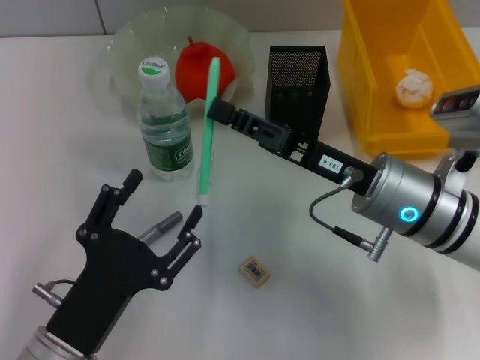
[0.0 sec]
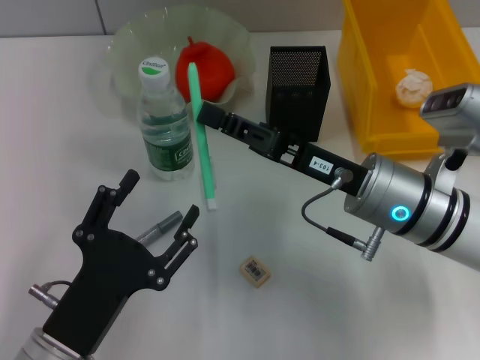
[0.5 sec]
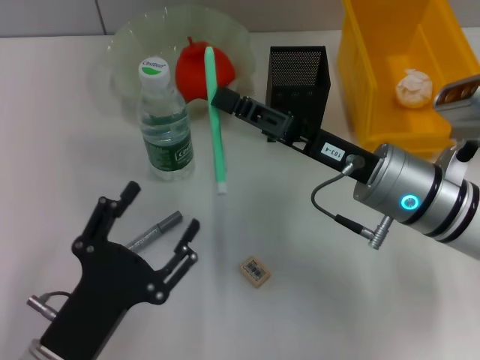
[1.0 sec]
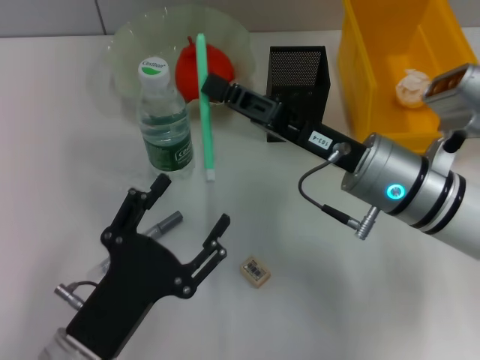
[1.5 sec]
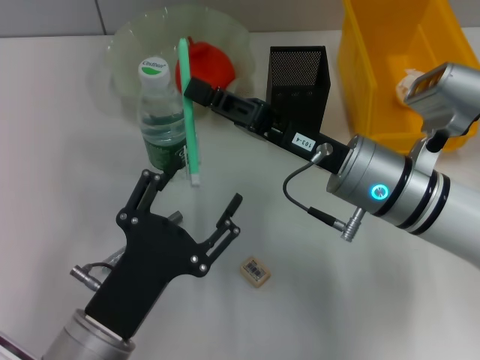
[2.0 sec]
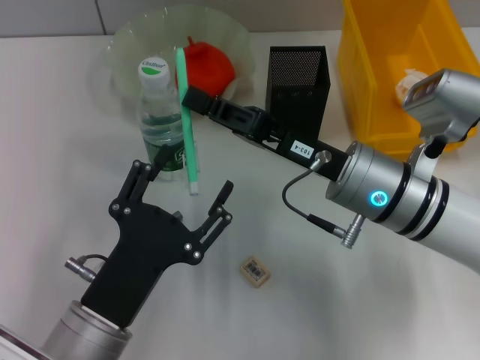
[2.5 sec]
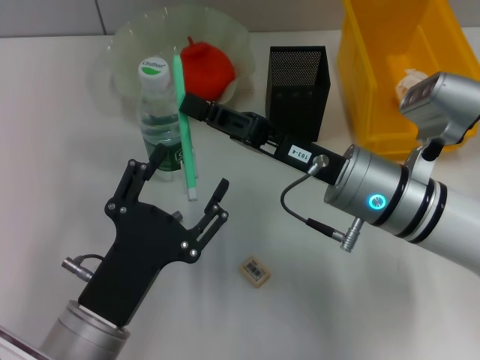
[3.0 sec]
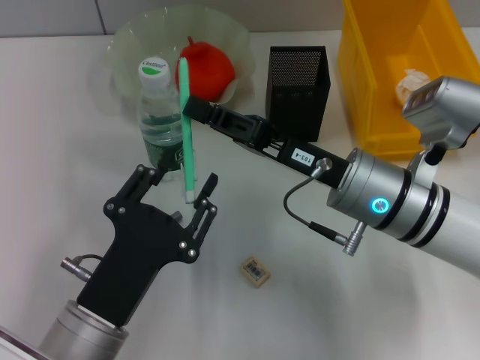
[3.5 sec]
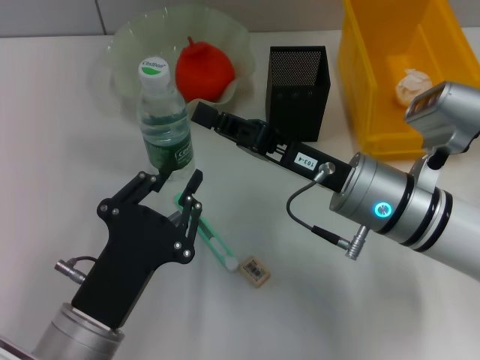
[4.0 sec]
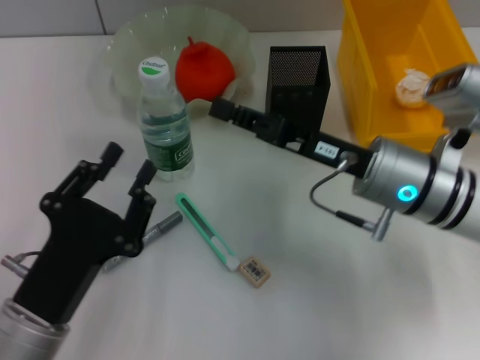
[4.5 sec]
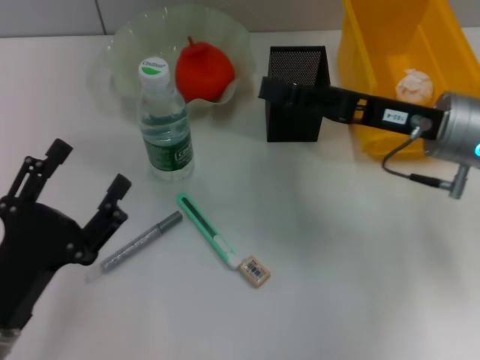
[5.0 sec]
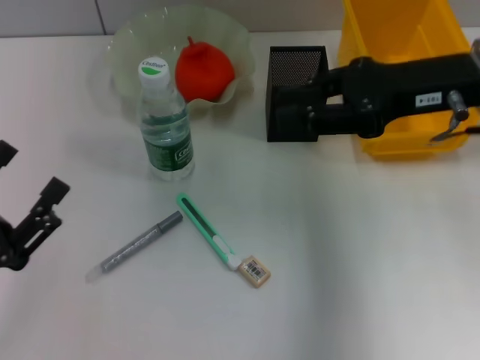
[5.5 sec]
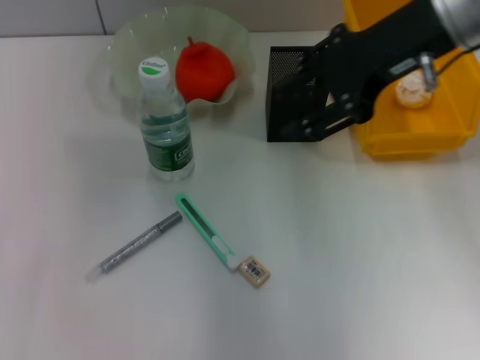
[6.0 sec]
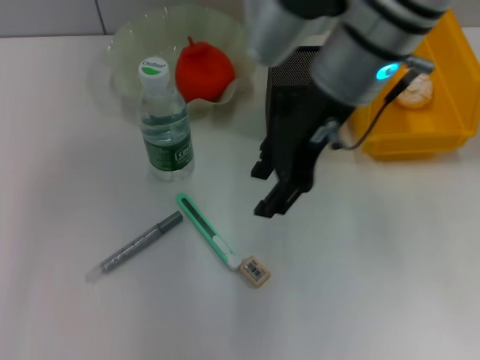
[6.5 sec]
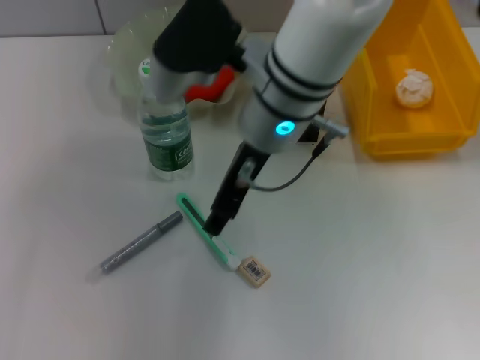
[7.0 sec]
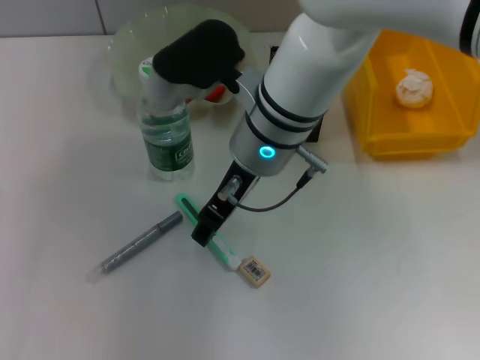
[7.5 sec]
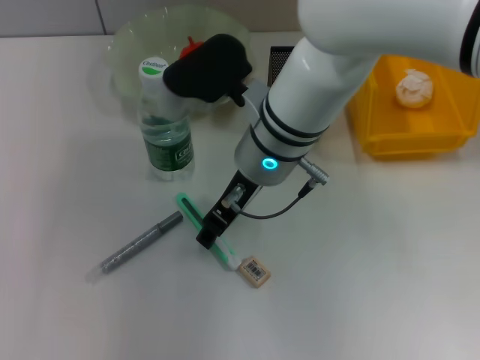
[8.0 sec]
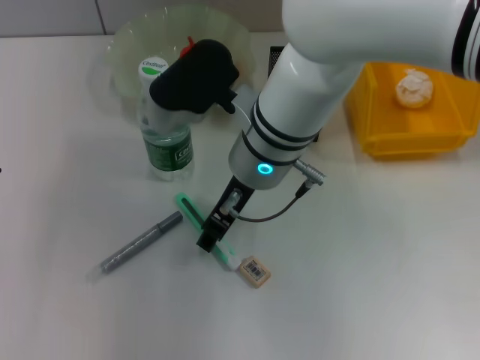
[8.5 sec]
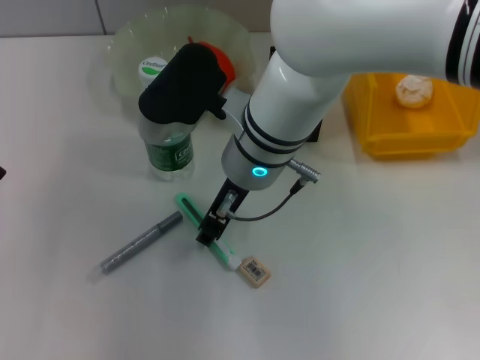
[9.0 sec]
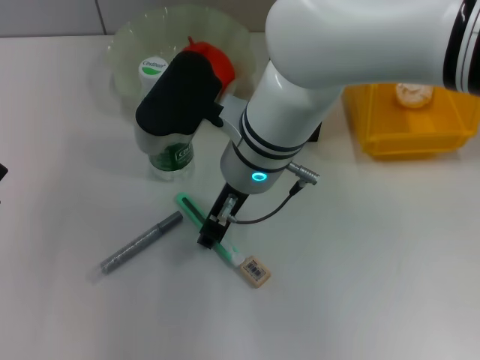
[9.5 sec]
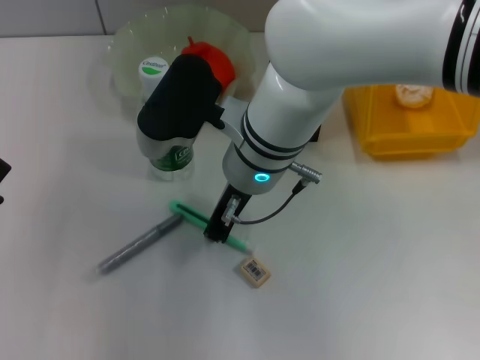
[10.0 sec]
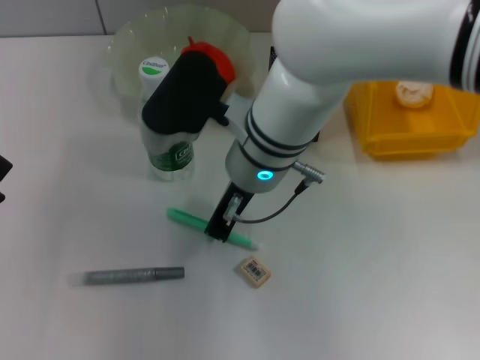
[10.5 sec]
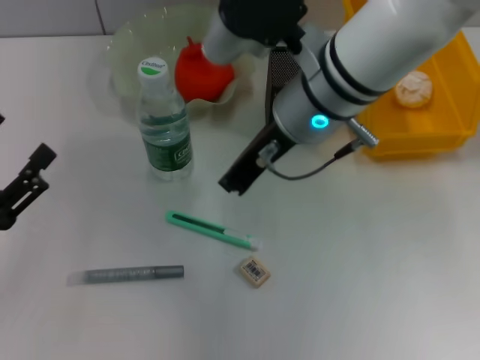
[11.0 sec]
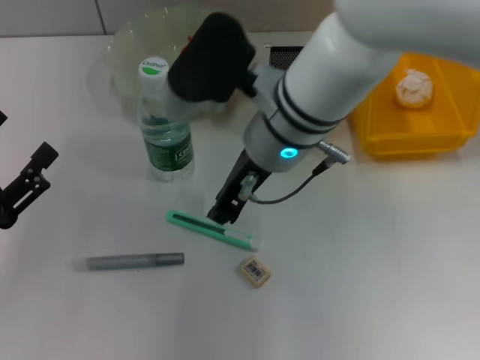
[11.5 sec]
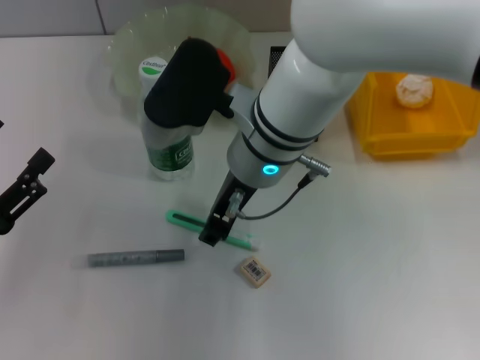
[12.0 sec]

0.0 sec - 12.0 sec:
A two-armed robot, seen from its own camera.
2.0 sec - 4.0 sec: The left gripper closes its fingers.
4.0 sec - 6.0 sec: The left gripper heads to the left, covering roughly 20 cm, and opens up; the right gripper travels upward and forward by about 20 cm, and opens its fingers.
6.0 sec - 8.0 sec: The right gripper goes some 20 cm to the left and downward.
8.0 sec - 10.0 sec: The right gripper closes its fingers.
10.0 sec - 12.0 sec: The right gripper closes, then opens again.

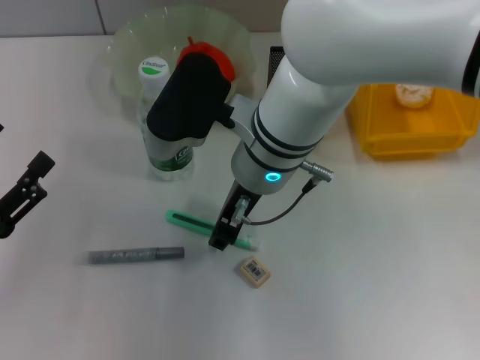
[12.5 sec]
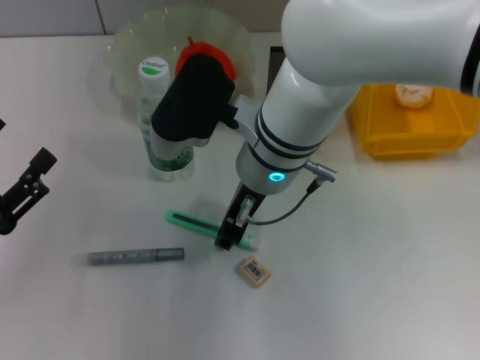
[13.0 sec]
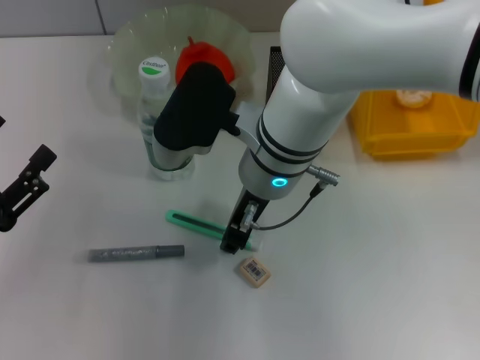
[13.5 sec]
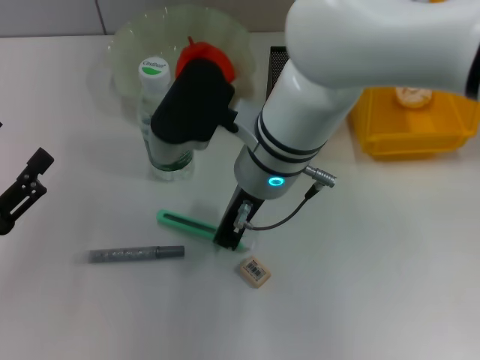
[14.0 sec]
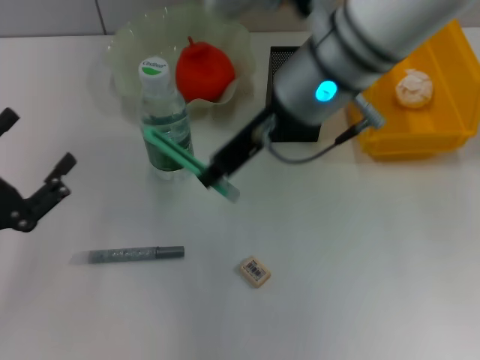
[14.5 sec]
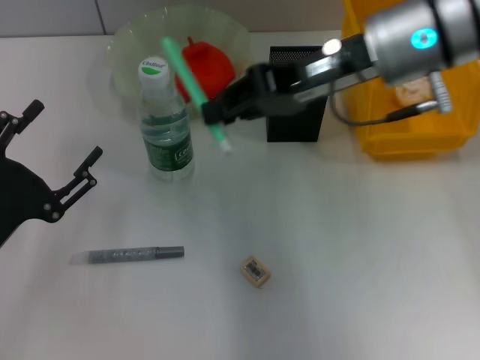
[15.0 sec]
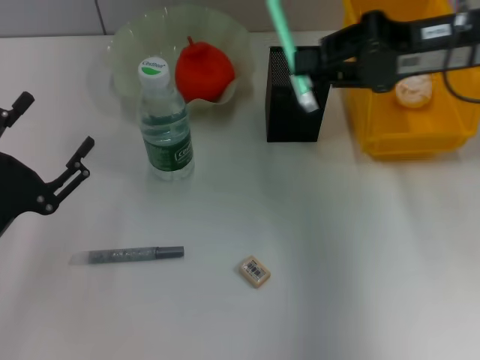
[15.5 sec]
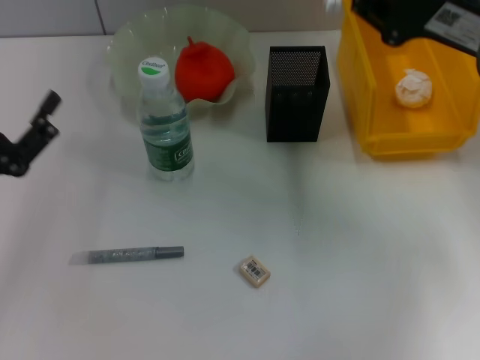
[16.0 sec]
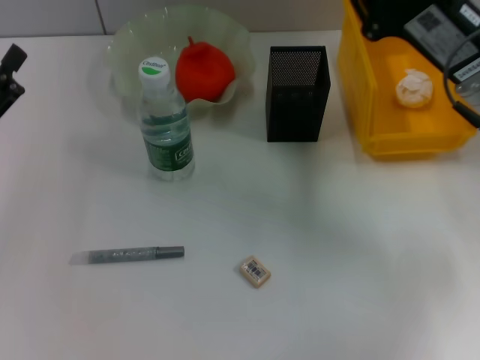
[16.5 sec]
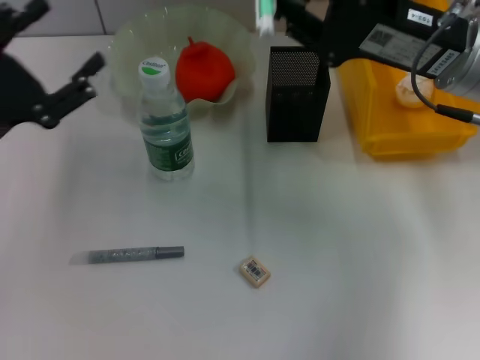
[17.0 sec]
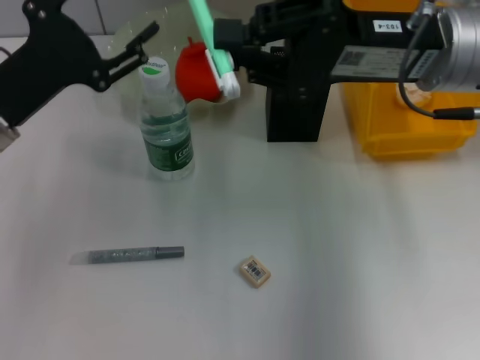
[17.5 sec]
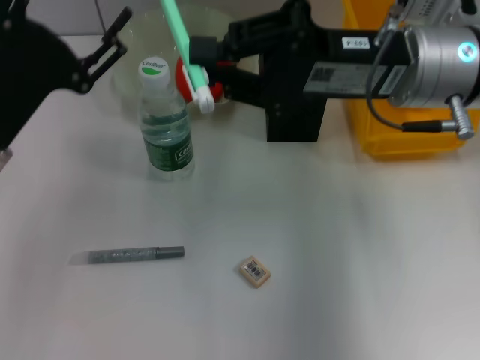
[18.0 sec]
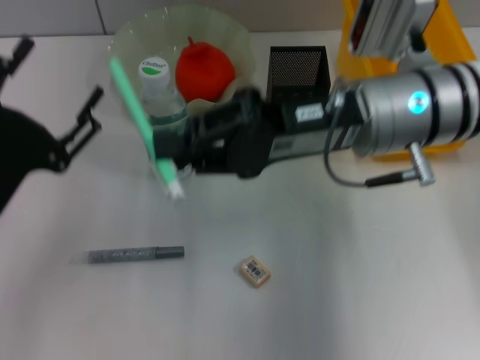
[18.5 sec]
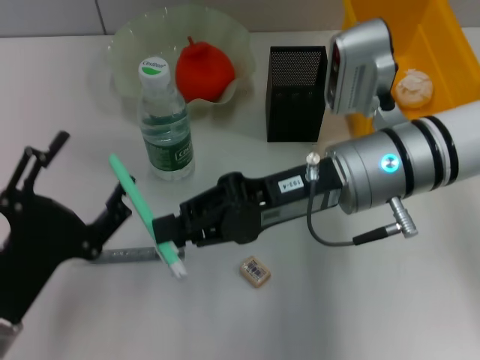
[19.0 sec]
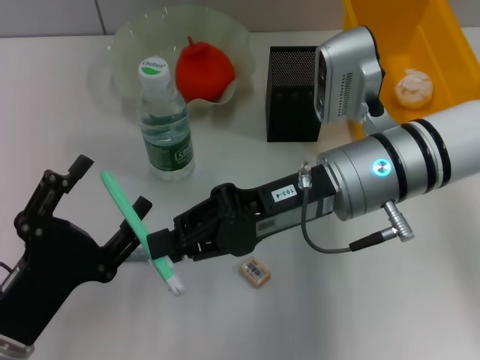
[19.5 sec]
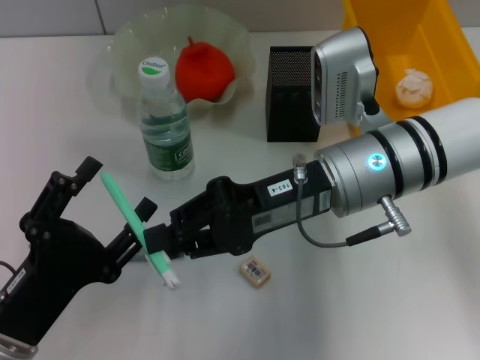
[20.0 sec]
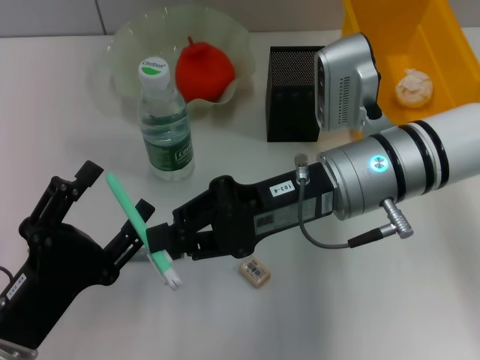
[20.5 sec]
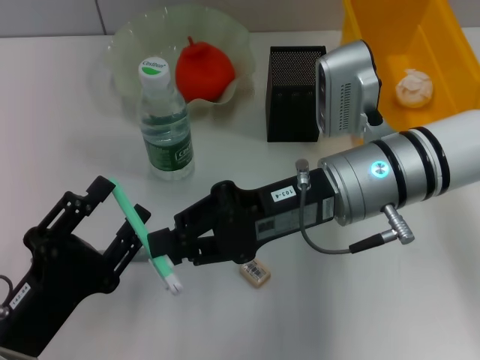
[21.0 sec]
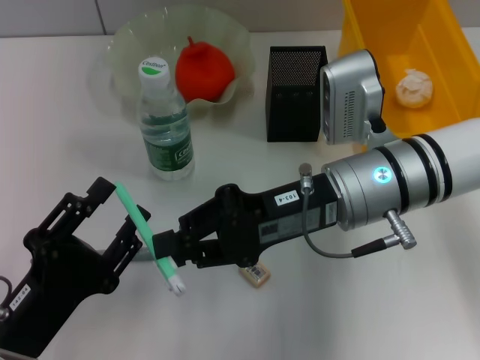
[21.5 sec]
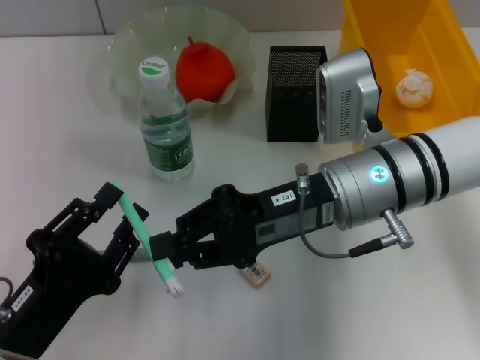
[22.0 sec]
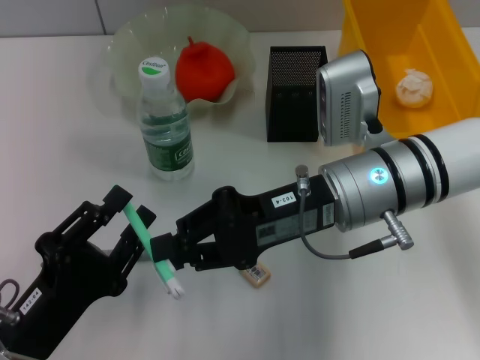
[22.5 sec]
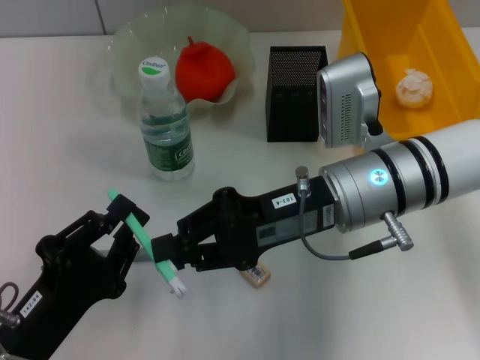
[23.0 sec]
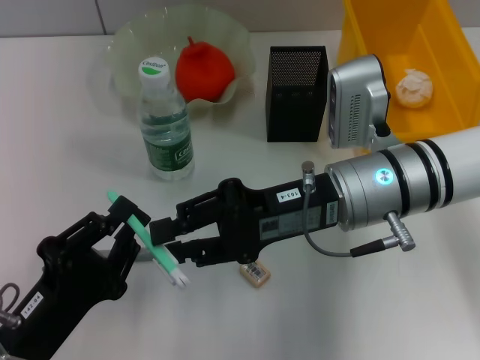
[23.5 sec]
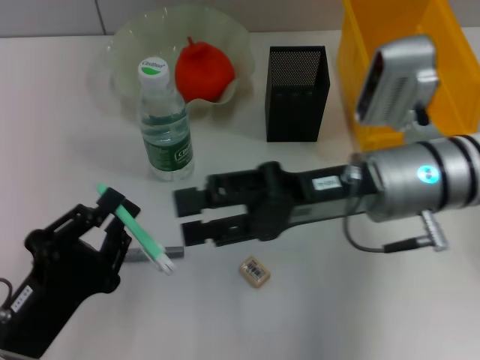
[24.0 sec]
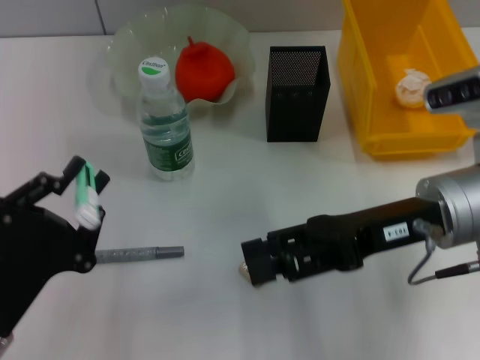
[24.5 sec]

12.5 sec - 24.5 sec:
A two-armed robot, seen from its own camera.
Step, 14.0 sec - 23.5 sec: Pass the blue utility knife from the right hand to the left hand.
12.5 sec - 14.5 sec: The right gripper travels upward and to the right by about 10 cm, and closes its fingers.
14.5 sec - 16.5 sec: The right gripper is displaced to the right and downward by approximately 15 cm. Meanwhile the left gripper ends up about 5 cm from where it was.
16.5 sec - 18.5 sec: The left gripper goes some 5 cm to the right, and moves approximately 10 cm forward and comes back. Meanwhile the right gripper shifts about 10 cm to the left.
18.5 sec - 20.5 sec: The left gripper moves backward, about 10 cm.
20.5 sec - 22.5 sec: The left gripper closes its fingers.
22.5 sec - 24.5 sec: The right gripper travels to the right by about 10 cm, and opens its fingers; the left gripper closes up.

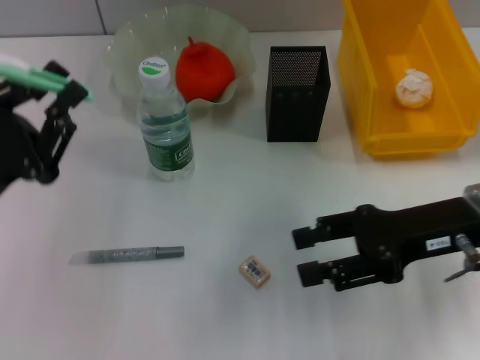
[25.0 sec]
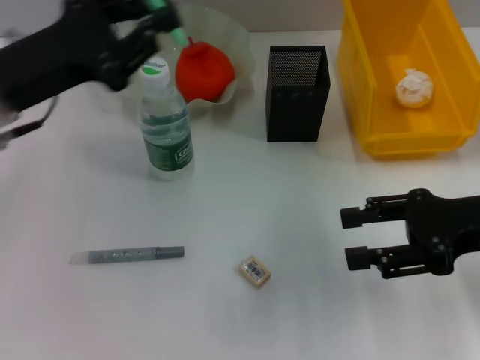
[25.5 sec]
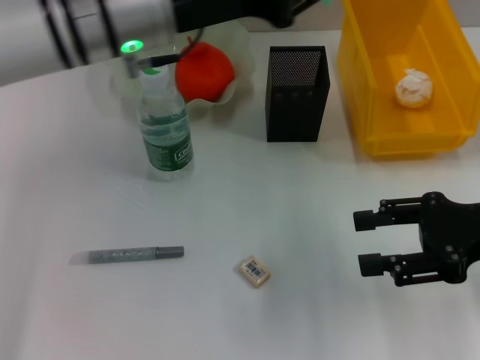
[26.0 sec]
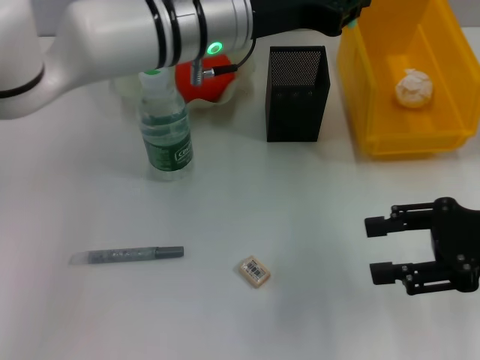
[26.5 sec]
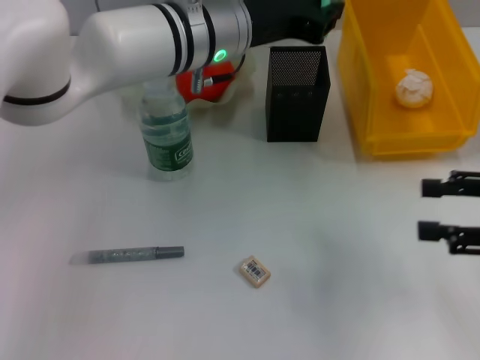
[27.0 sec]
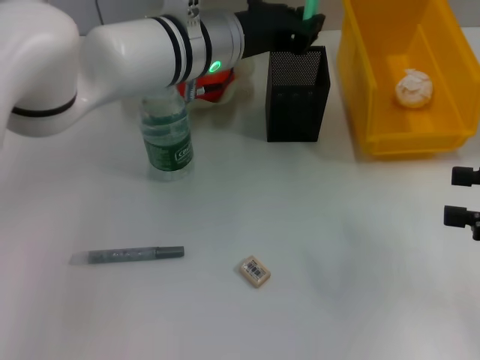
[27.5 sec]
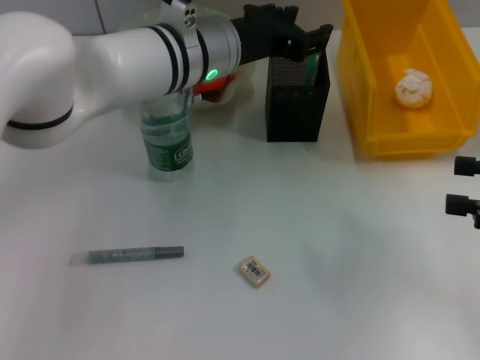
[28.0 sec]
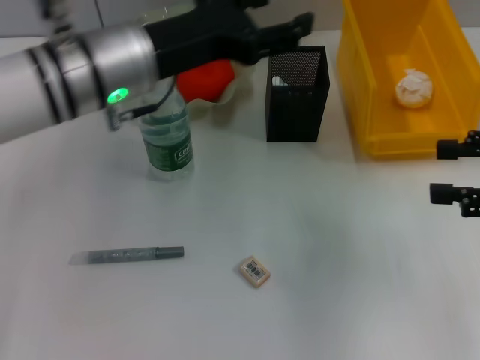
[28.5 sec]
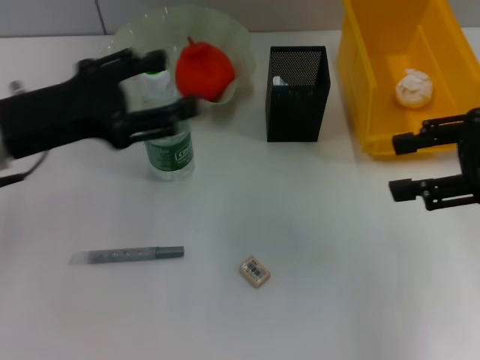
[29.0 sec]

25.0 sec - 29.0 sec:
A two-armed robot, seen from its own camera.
Step, 25.0 sec - 28.0 sec: Place the blue utility knife into the pen holder with the left hand.
25.0 sec - 27.0 sec: The right gripper heads to the right, covering roughly 10 cm. The left gripper shifts approximately 30 cm to the right and forward.
27.0 sec - 29.0 sec: The left gripper heads to the left and backward, covering some 20 cm, and opens its fingers. The right gripper shifts approximately 10 cm upward.
